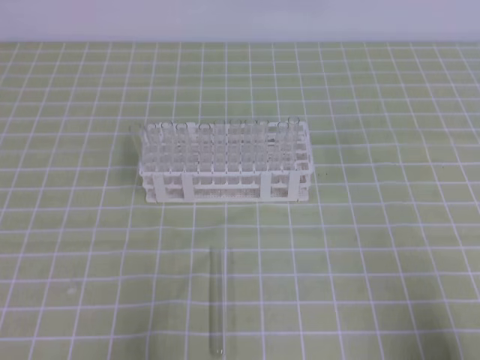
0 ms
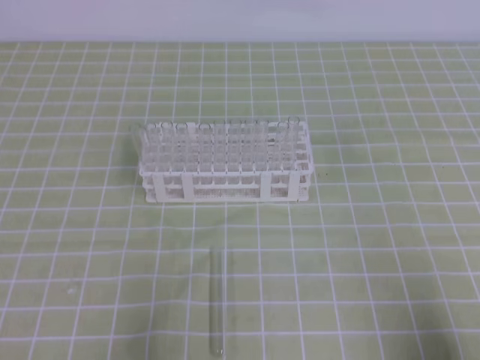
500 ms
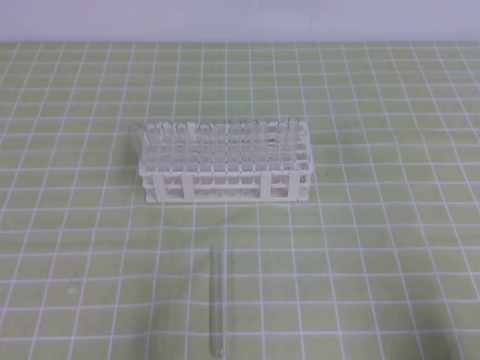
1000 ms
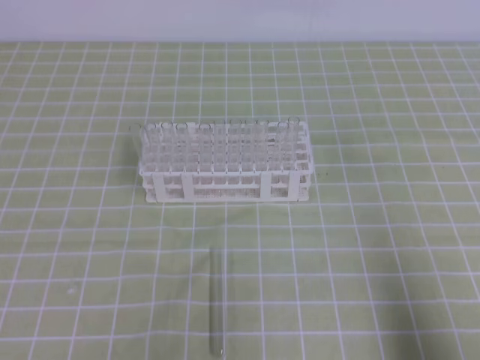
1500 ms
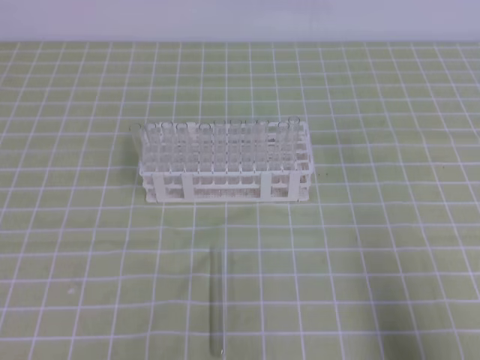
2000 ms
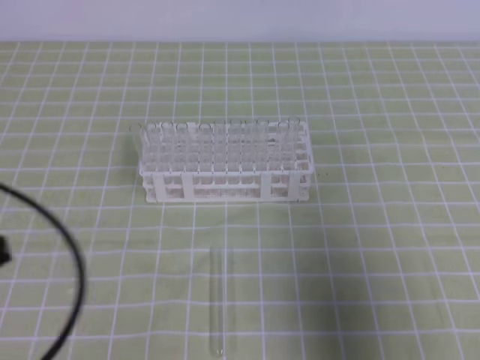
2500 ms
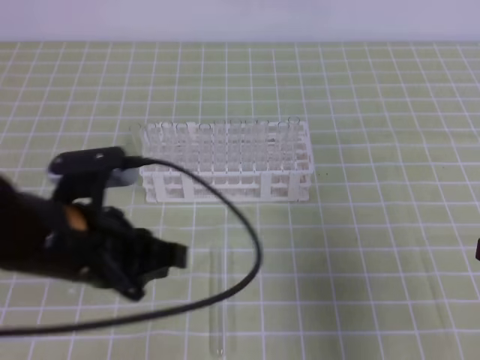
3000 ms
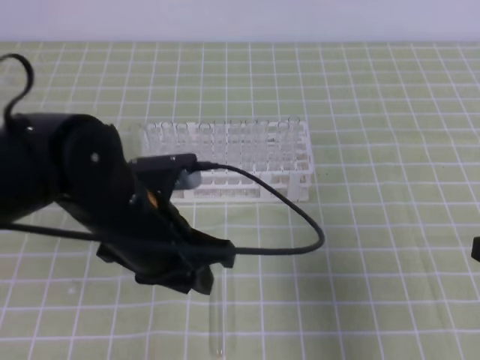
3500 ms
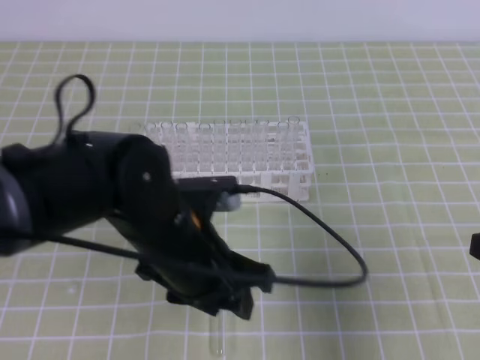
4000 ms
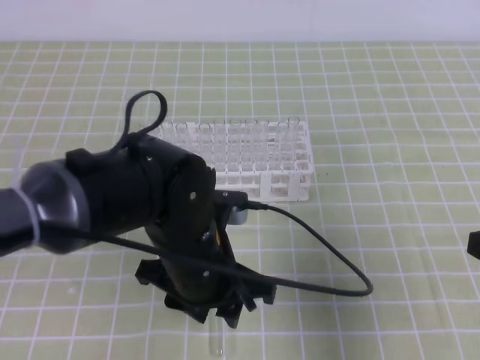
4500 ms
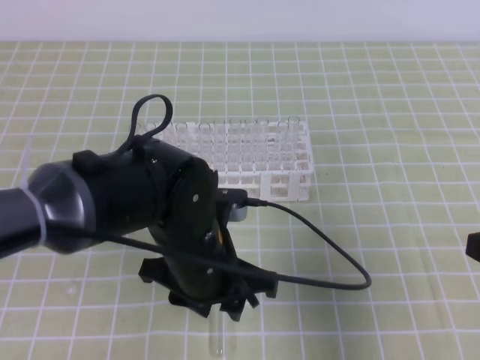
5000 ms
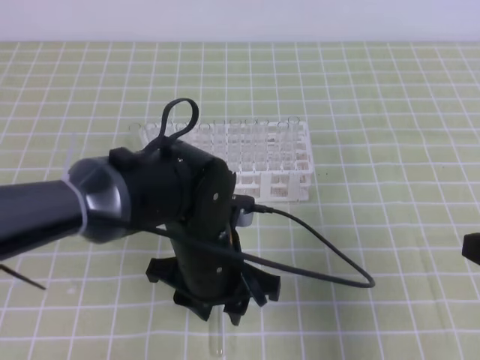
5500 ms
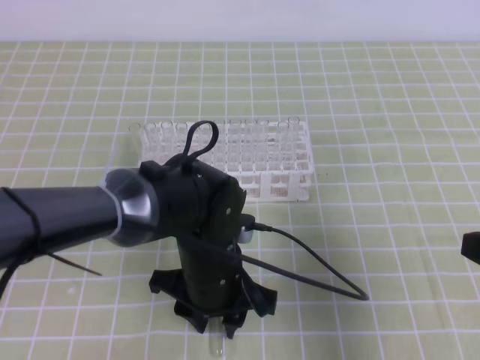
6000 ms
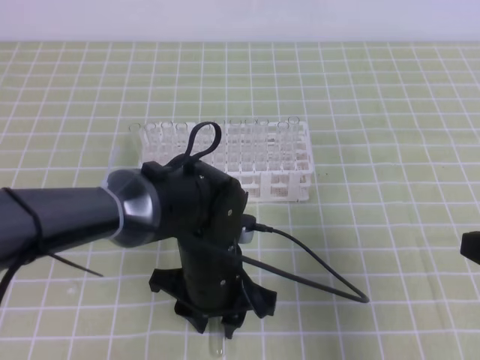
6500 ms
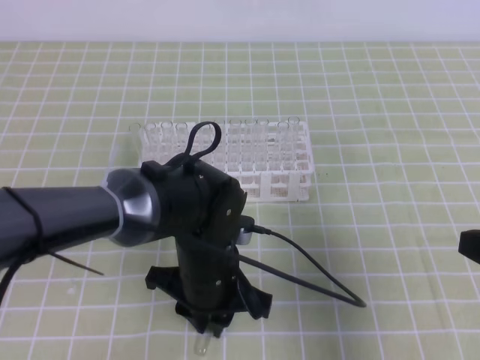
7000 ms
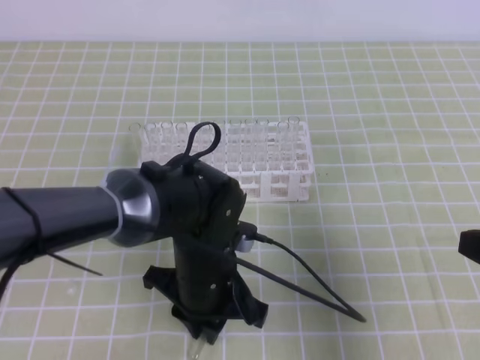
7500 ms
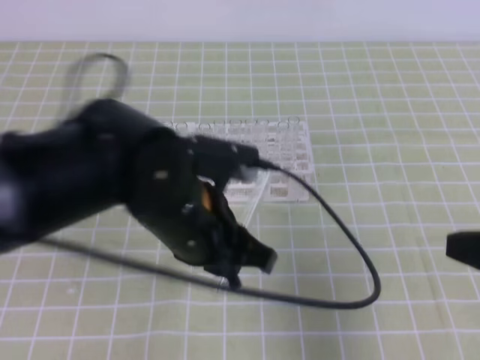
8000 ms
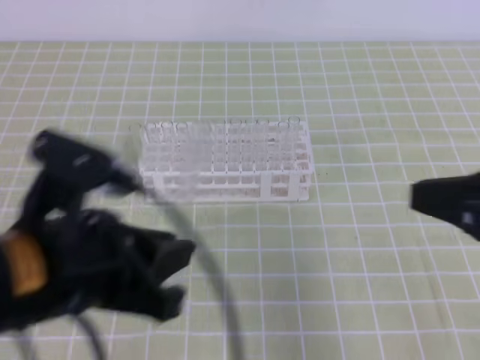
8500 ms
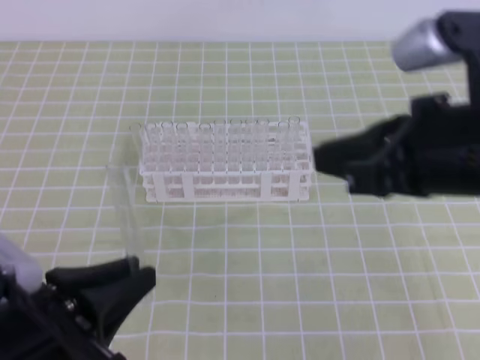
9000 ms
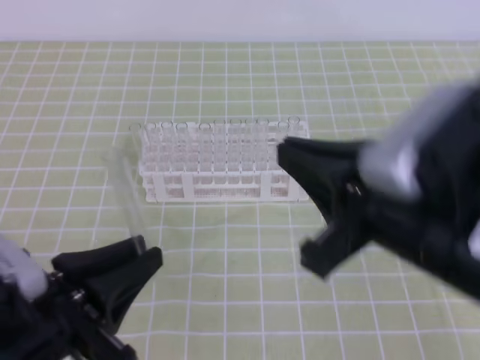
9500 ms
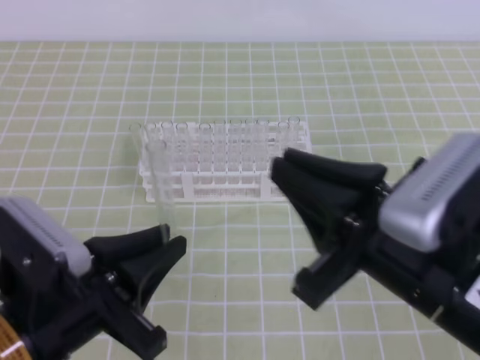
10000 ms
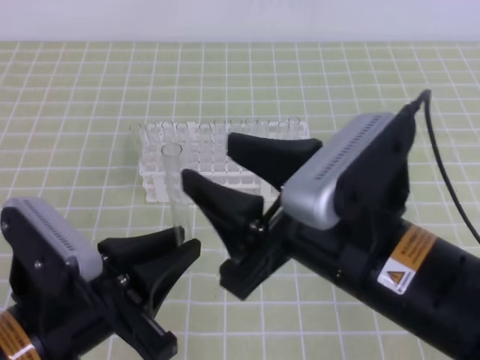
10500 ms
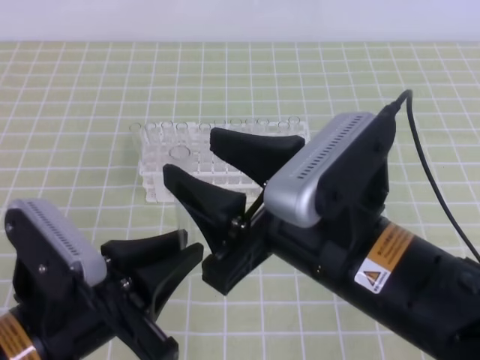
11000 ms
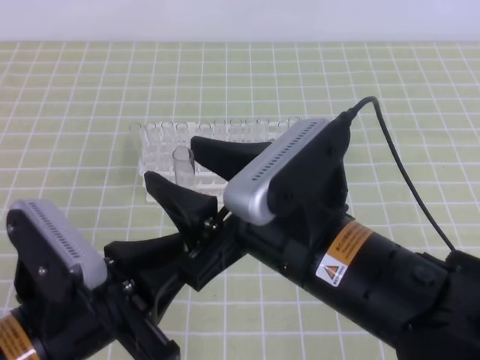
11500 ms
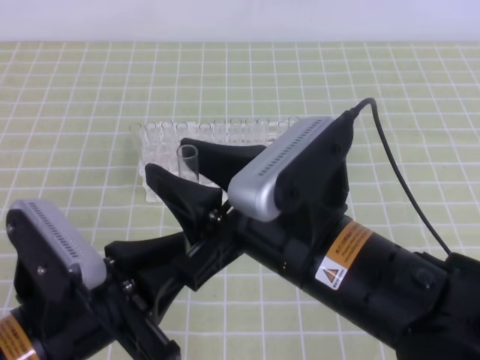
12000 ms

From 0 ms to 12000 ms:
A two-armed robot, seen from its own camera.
From 2000 ms to 4000 ms: The right gripper heads forward, covering some 10 cm. Meanwhile the left gripper moves to the right and forward, about 25 cm, and opens up.
From 4000 ms to 6000 ms: The left gripper travels downward by about 5 cm.
From 6000 ms to 8000 ms: The left gripper shifts roughly 10 cm upward, and closes its fingers.
From 8000 ms to 10000 ms: The right gripper heads to the left, covering some 15 cm. The left gripper shifts roughly 15 cm to the left and backward.
From 10000 ms to 12000 ms: The right gripper moves to the left, approximately 5 cm, and opens its fingers.

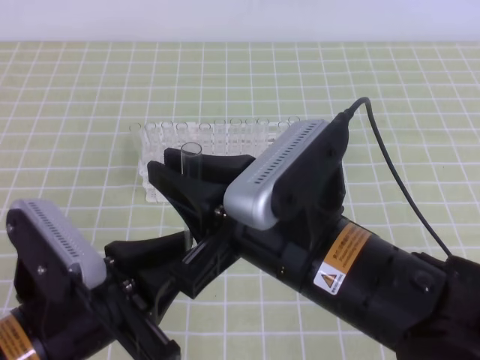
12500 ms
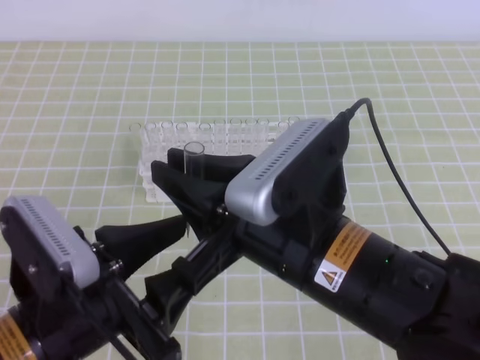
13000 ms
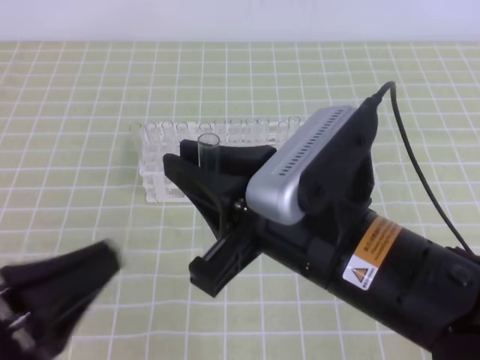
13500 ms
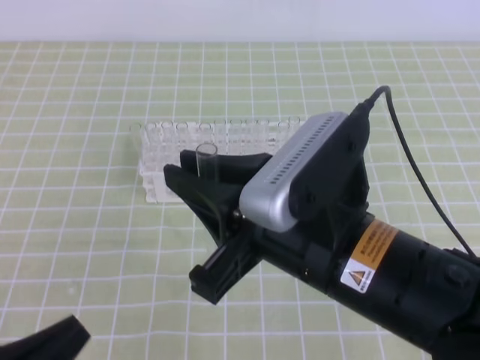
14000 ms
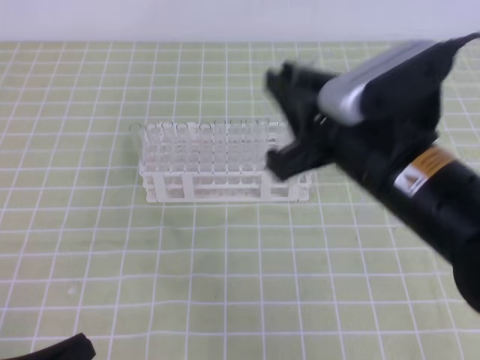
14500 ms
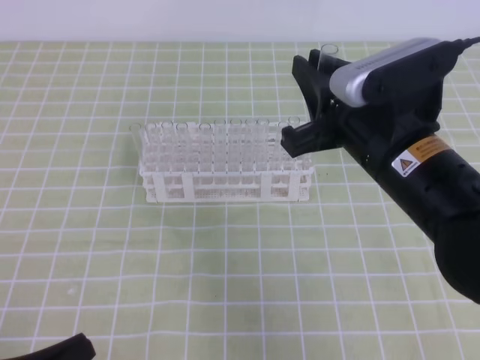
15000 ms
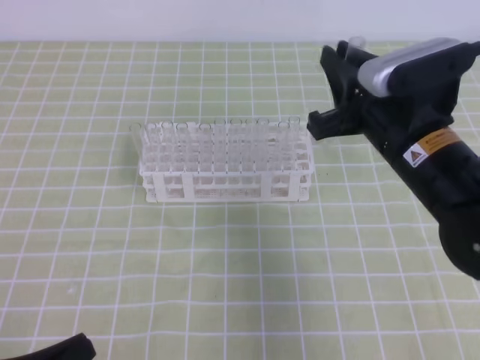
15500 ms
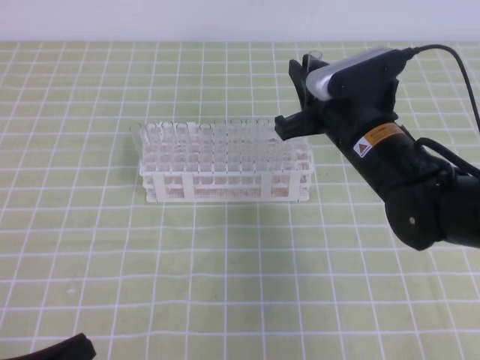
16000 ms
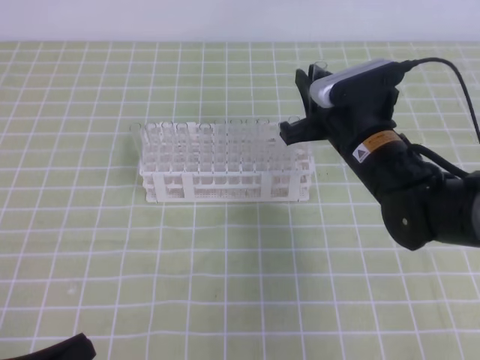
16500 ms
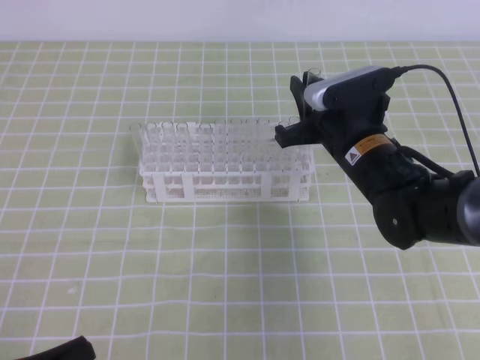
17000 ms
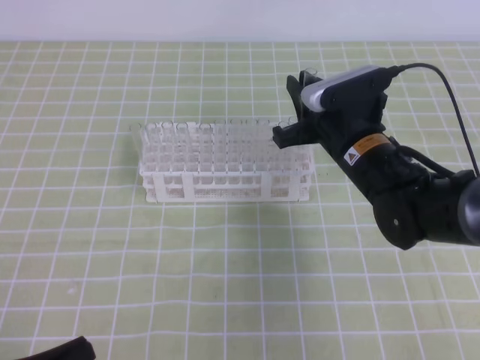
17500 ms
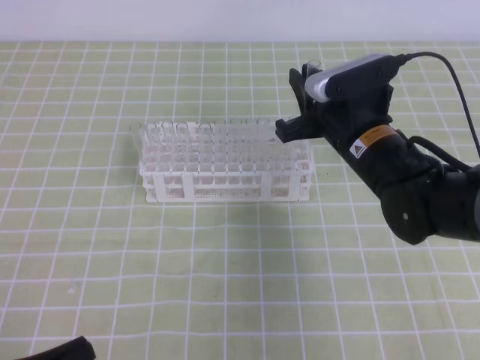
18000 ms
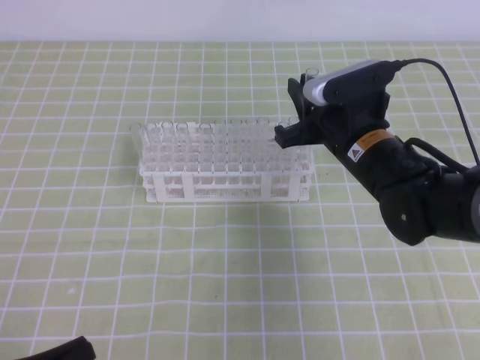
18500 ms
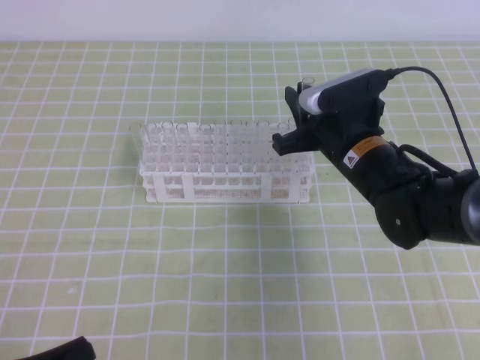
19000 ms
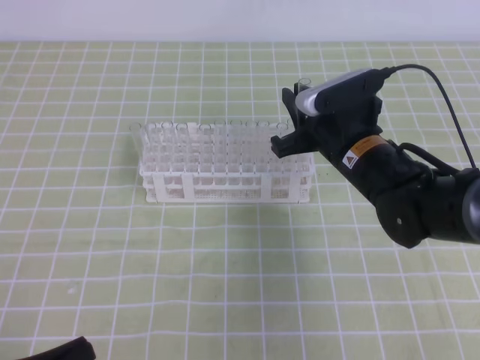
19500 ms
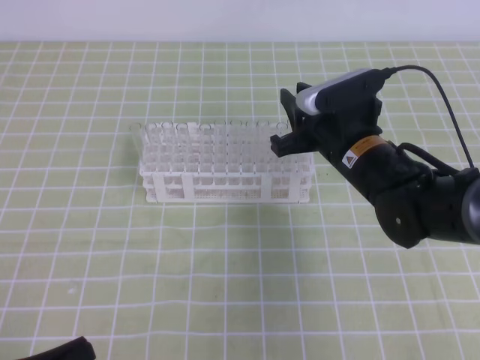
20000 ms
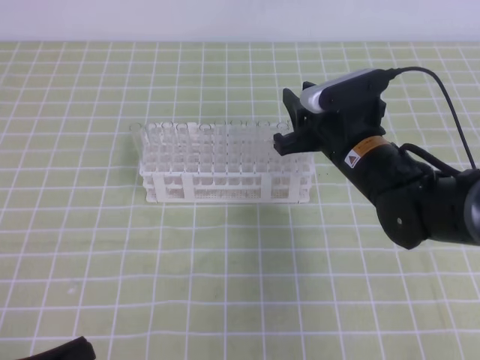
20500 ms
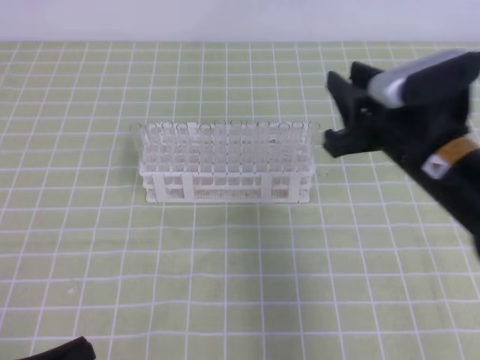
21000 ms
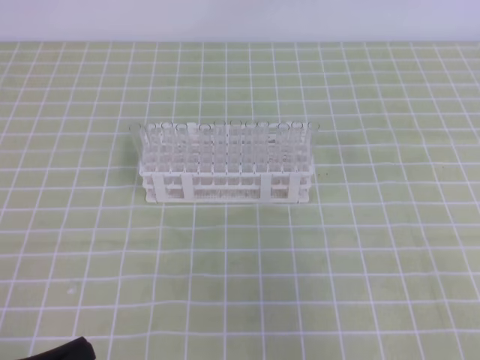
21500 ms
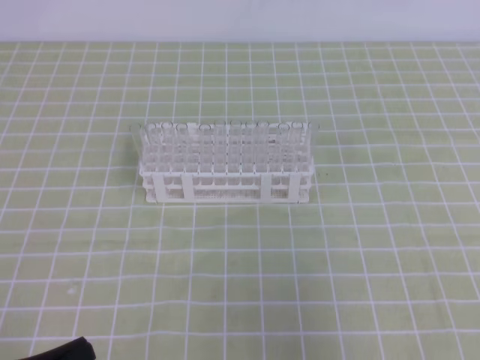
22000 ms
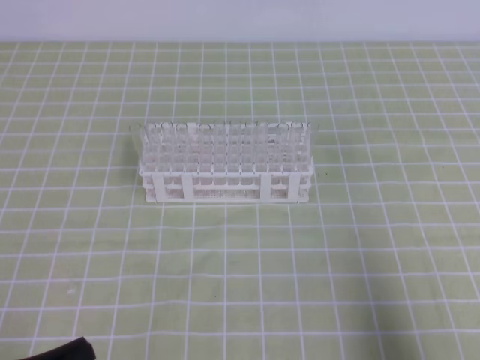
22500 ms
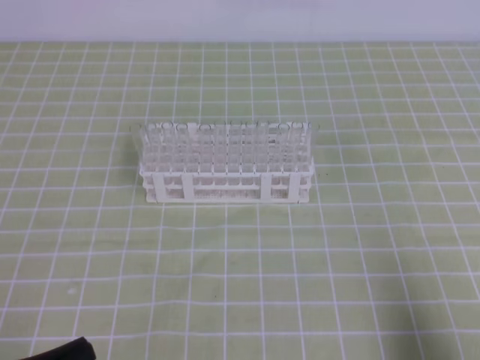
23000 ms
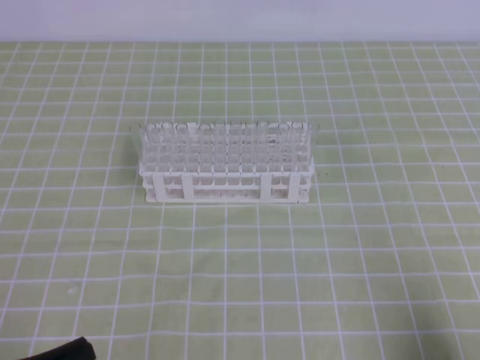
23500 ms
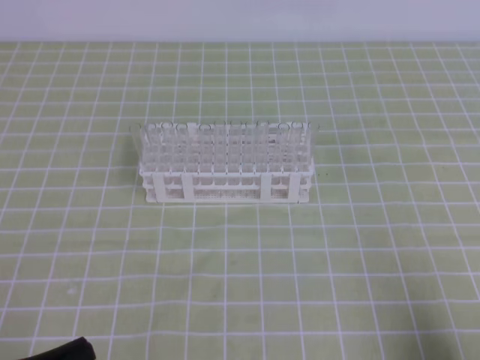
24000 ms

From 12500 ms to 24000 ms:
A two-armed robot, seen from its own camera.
From 12500 ms to 14500 ms: The left gripper shifts some 15 cm to the left, backward and downward, and opens and closes again, while the right gripper is displaced to the right and forward by roughly 5 cm.
From 14500 ms to 16500 ms: The right gripper goes approximately 15 cm forward and downward.
From 16500 ms to 18500 ms: The grippers stay close to where they were, moving slightly.
From 18500 ms to 20000 ms: Neither gripper changes place.
From 20000 ms to 22000 ms: The right gripper heads backward, to the right and upward, covering some 35 cm, and closes its fingers.
From 22000 ms to 24000 ms: The right gripper goes approximately 15 cm downward.

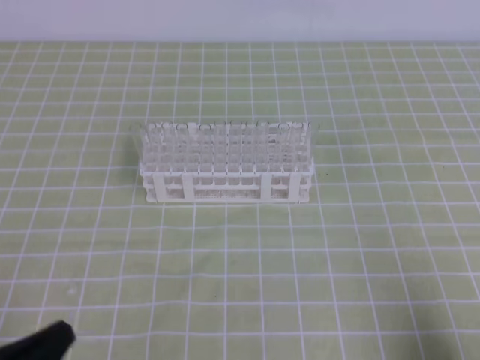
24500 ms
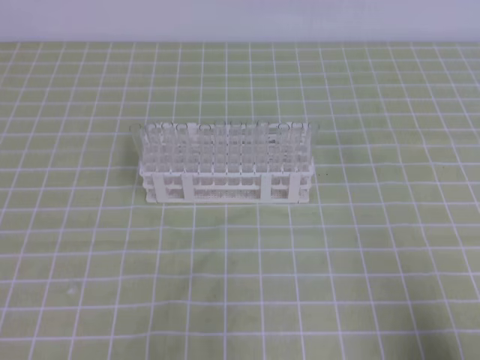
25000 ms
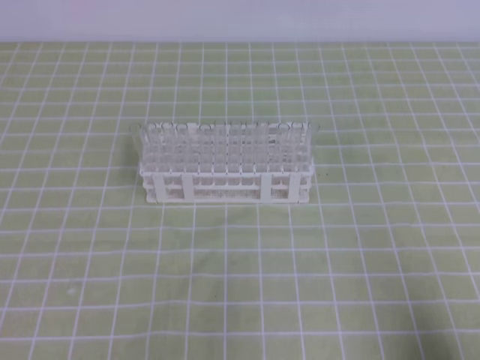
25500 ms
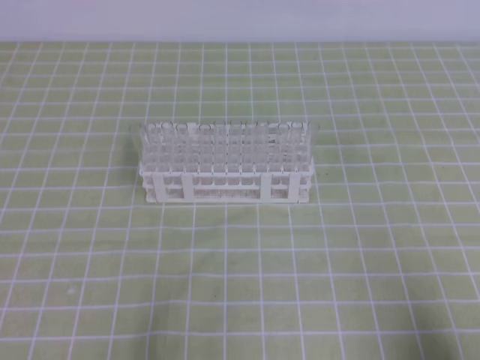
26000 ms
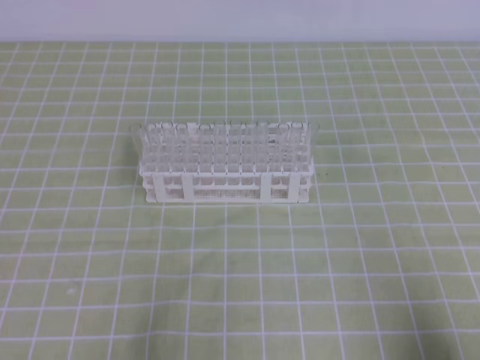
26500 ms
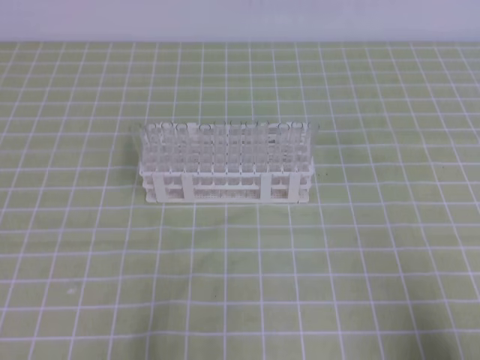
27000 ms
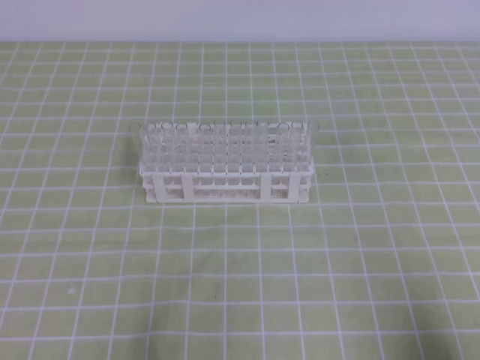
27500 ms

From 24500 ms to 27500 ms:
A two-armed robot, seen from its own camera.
From 26000 ms to 27500 ms: Both grippers stay about where they are.
